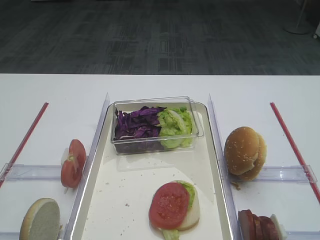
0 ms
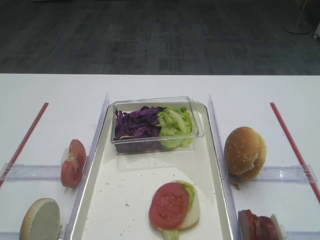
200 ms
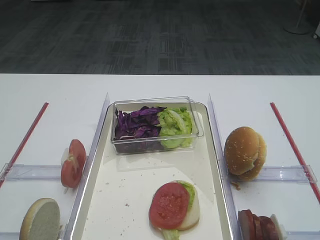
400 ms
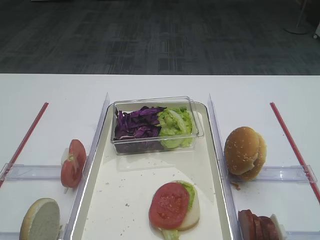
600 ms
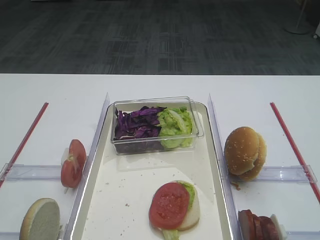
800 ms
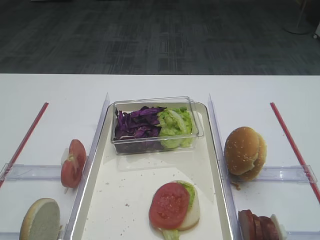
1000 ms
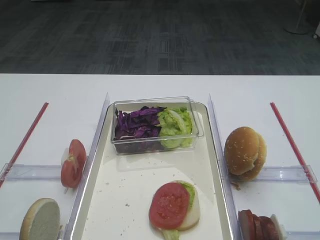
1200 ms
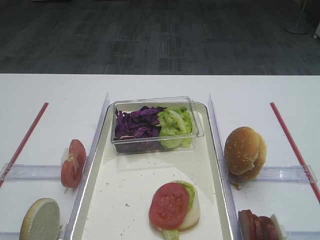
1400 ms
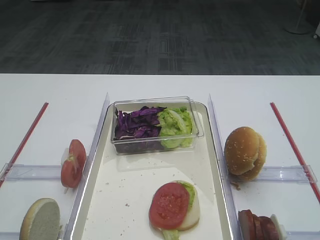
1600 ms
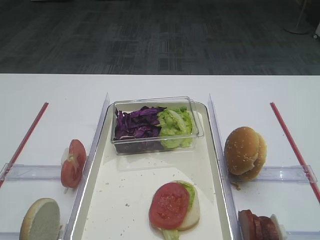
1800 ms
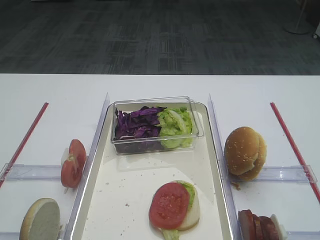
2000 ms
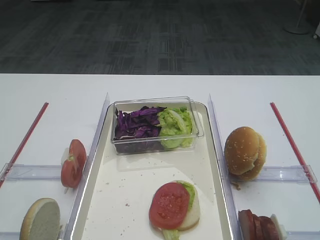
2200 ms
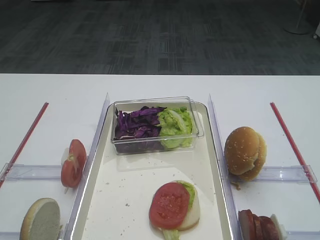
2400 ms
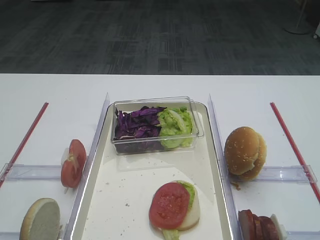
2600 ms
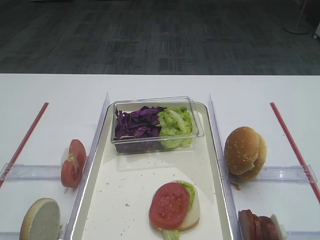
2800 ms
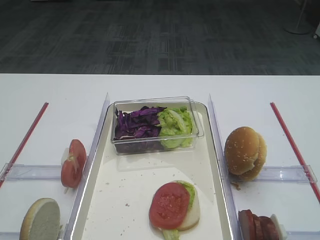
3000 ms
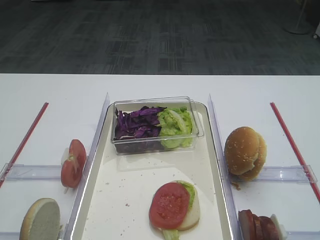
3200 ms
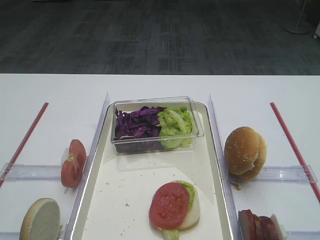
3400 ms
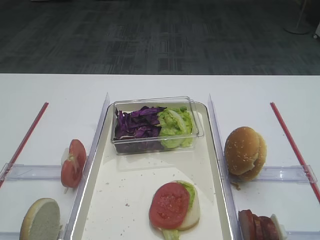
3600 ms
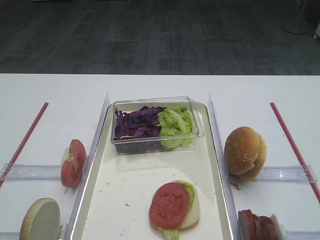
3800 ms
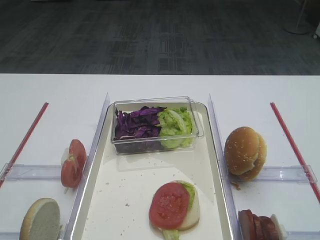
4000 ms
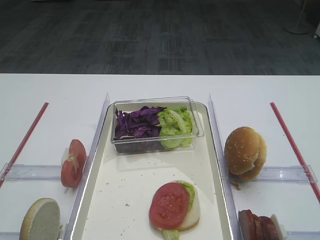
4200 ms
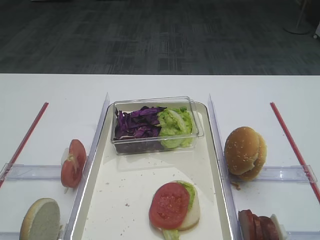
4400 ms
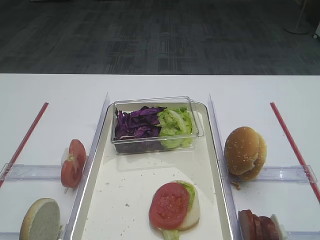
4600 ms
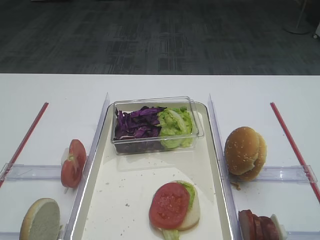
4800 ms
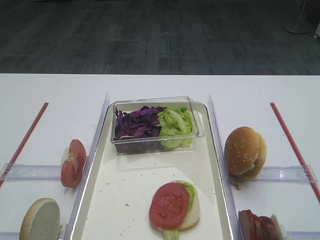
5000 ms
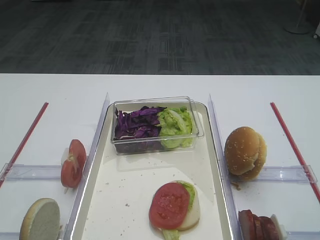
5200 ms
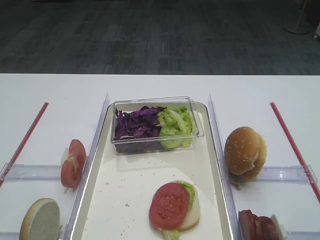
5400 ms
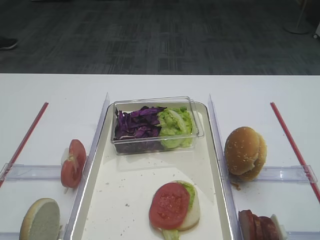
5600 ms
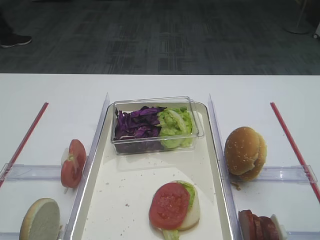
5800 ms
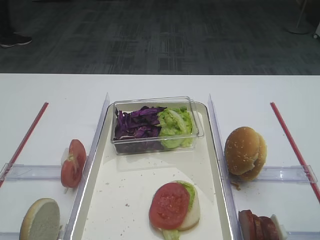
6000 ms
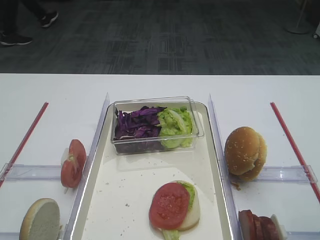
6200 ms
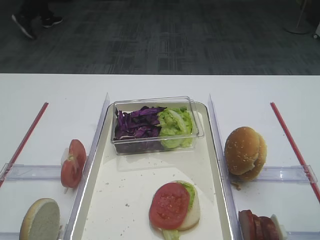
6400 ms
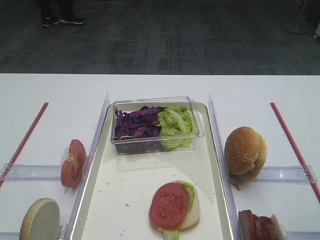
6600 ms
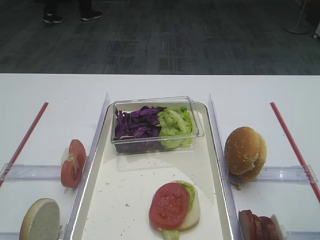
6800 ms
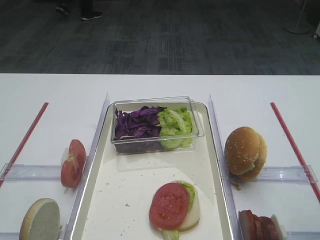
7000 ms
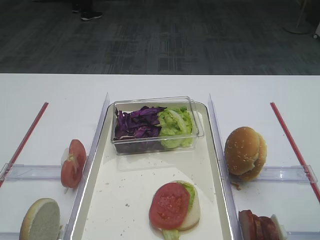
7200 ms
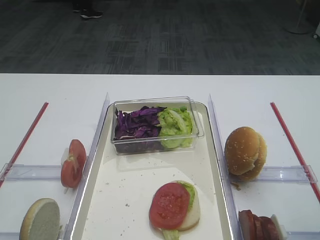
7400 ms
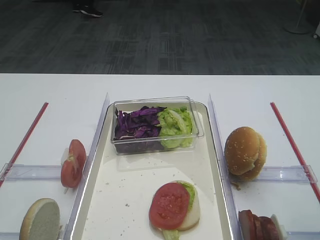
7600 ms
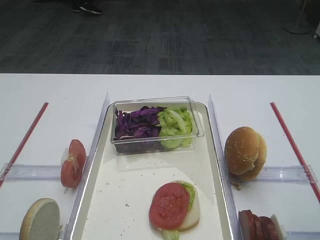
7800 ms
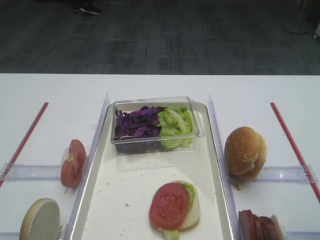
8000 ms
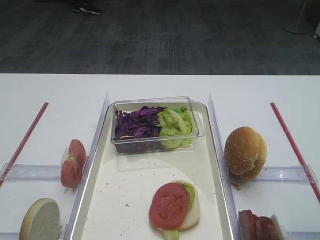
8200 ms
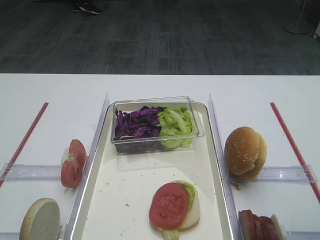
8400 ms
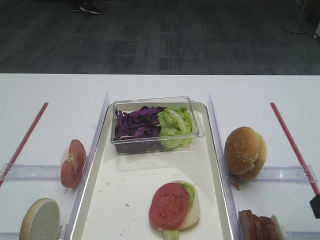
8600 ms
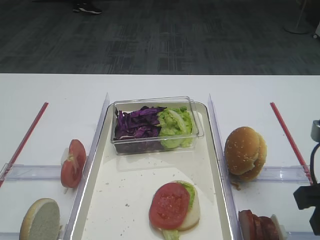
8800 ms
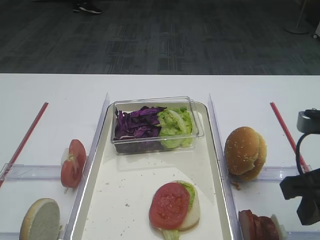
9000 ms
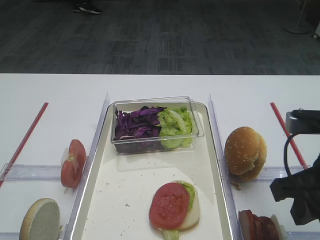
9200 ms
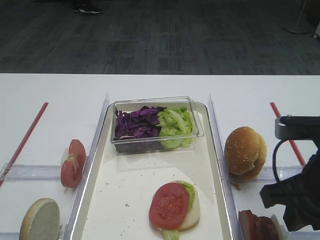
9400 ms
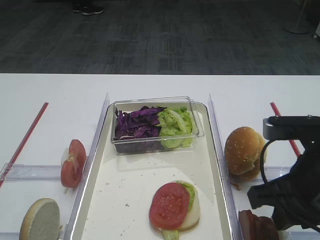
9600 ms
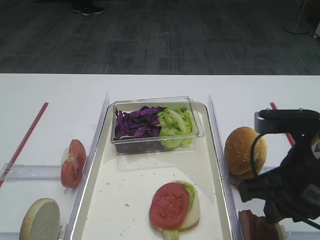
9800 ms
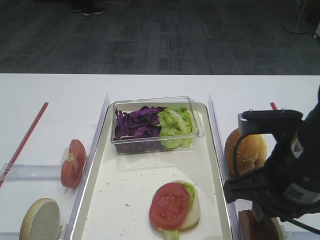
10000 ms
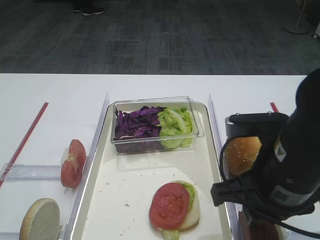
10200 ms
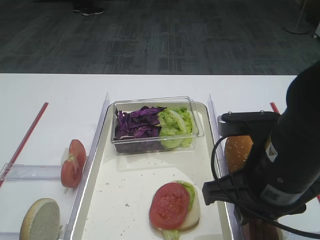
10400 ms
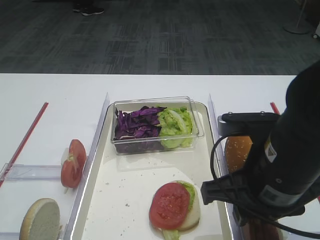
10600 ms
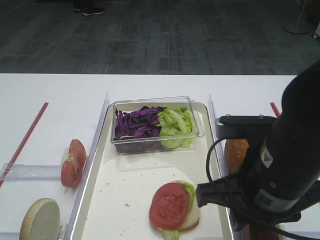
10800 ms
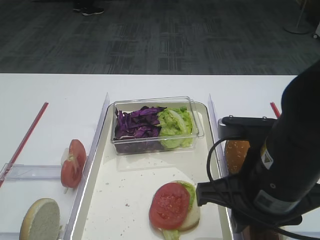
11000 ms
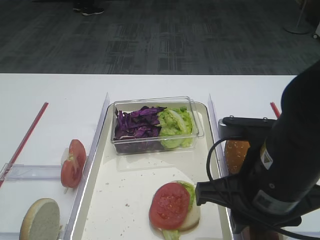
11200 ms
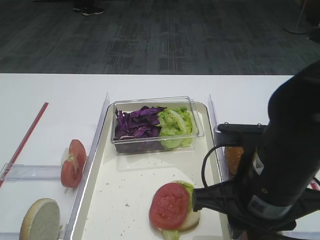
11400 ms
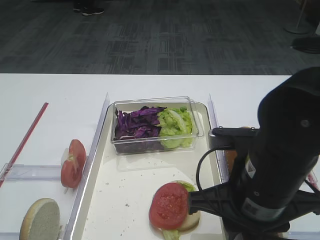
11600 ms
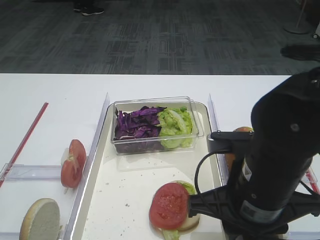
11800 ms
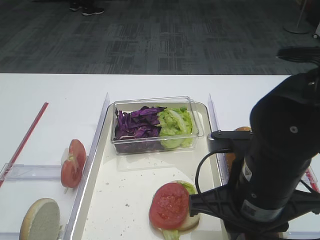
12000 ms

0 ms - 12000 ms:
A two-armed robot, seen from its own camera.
1600 ms - 3000 ms: Both grippers stay about where they are.
7600 ms - 9000 ms: The right gripper shifts approximately 5 cm to the left.
9000 ms - 10400 ms: The right gripper shifts about 10 cm to the left.
10400 ms - 12000 ms: There are only small adjustments of the grippers.

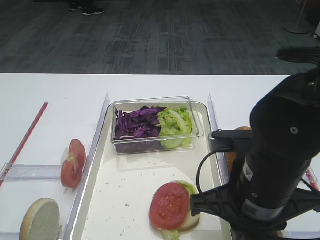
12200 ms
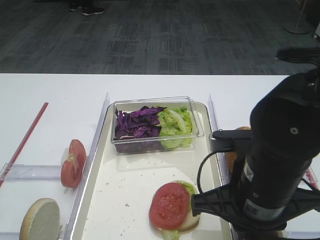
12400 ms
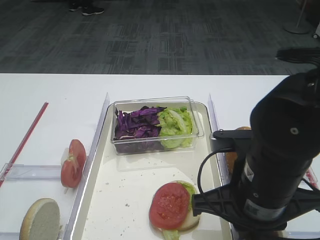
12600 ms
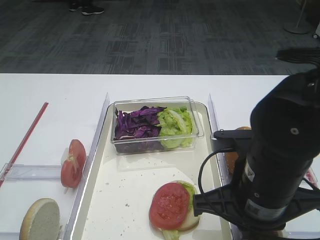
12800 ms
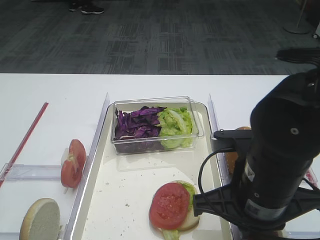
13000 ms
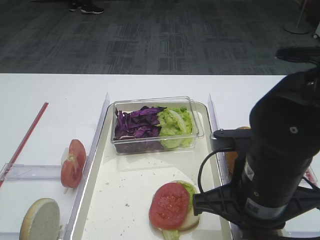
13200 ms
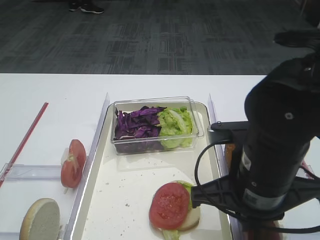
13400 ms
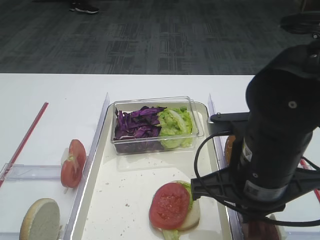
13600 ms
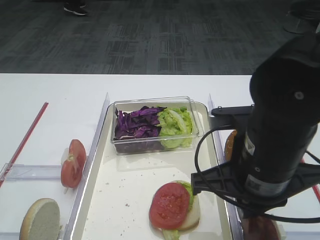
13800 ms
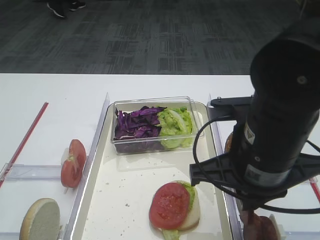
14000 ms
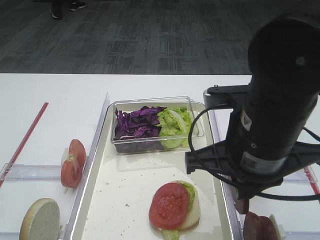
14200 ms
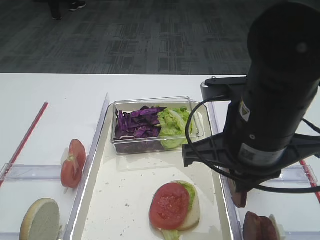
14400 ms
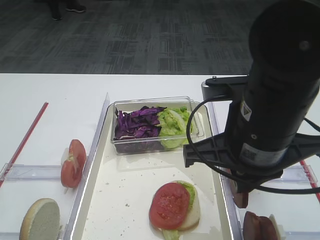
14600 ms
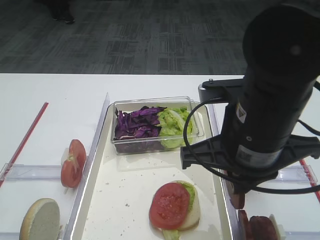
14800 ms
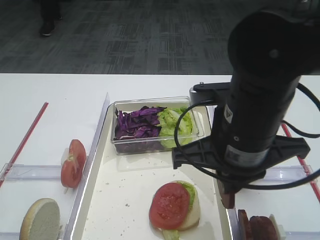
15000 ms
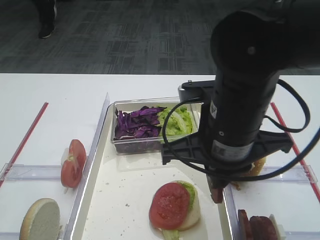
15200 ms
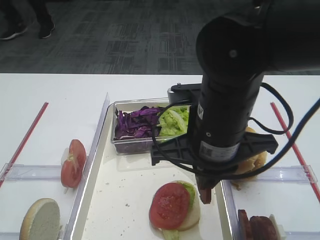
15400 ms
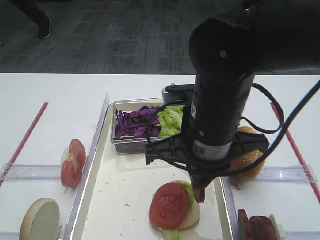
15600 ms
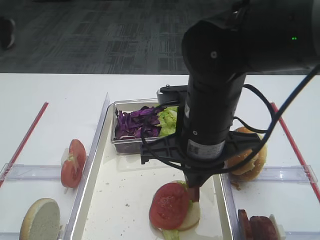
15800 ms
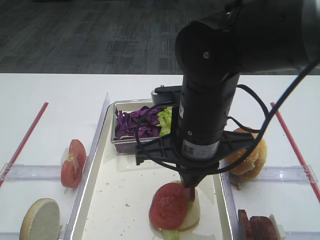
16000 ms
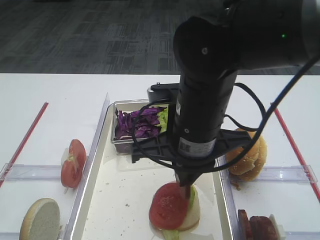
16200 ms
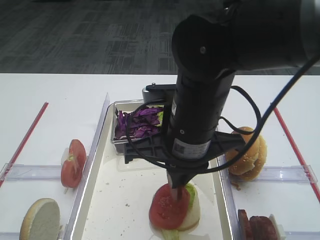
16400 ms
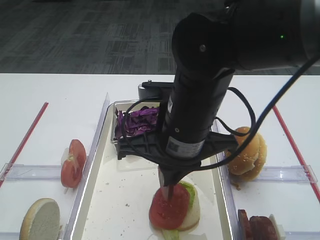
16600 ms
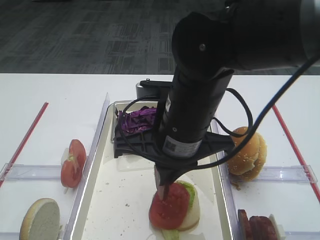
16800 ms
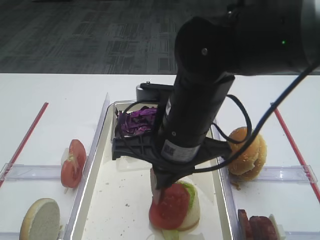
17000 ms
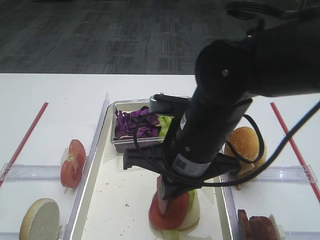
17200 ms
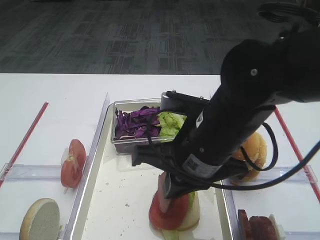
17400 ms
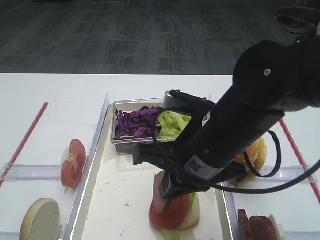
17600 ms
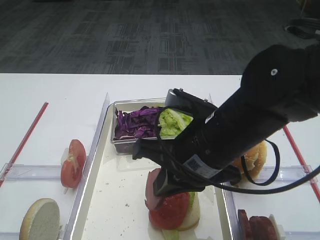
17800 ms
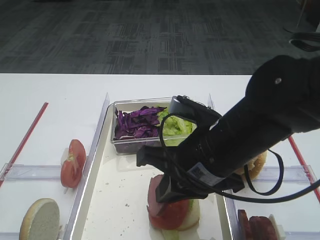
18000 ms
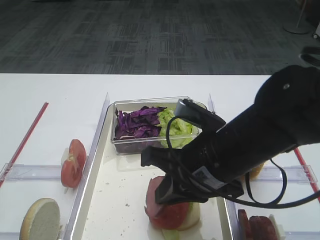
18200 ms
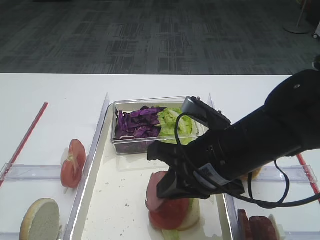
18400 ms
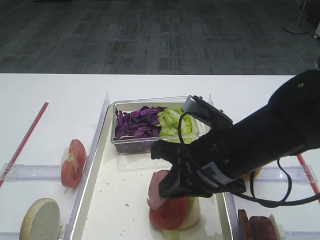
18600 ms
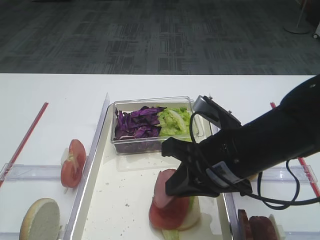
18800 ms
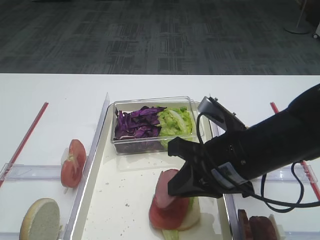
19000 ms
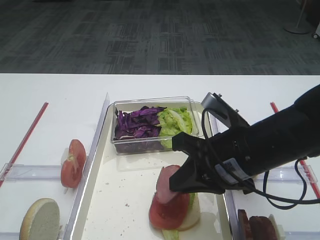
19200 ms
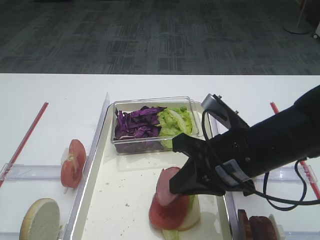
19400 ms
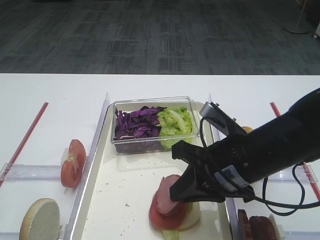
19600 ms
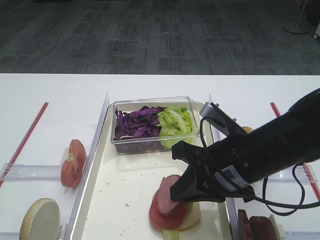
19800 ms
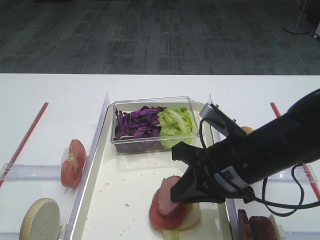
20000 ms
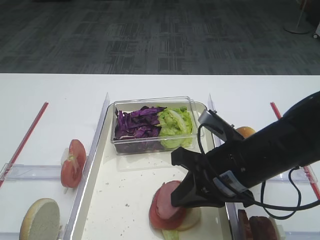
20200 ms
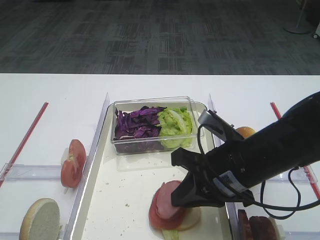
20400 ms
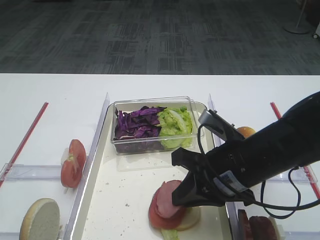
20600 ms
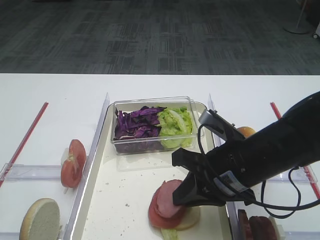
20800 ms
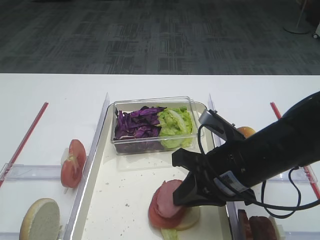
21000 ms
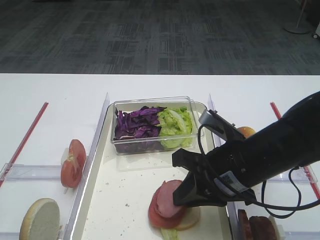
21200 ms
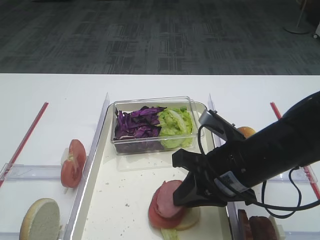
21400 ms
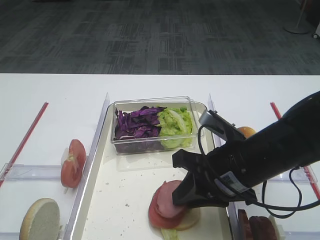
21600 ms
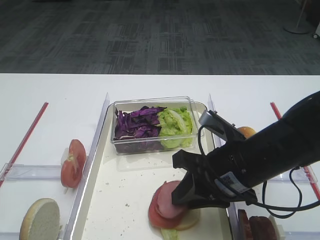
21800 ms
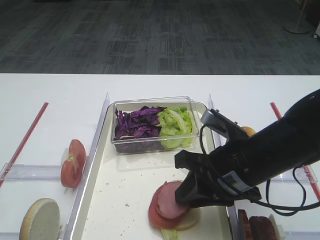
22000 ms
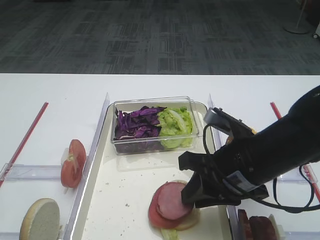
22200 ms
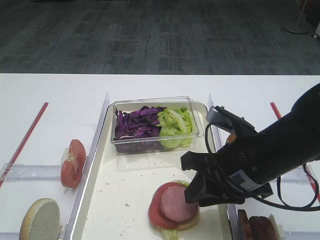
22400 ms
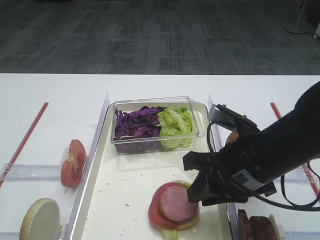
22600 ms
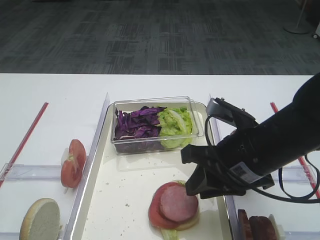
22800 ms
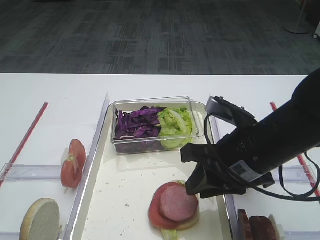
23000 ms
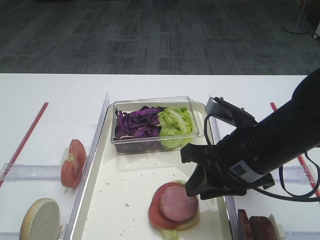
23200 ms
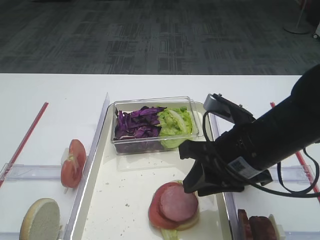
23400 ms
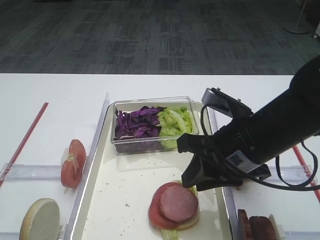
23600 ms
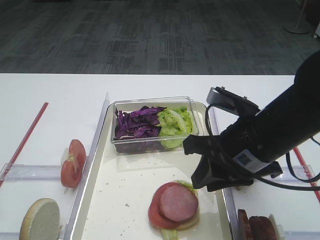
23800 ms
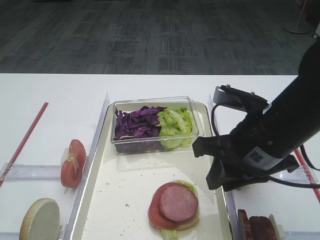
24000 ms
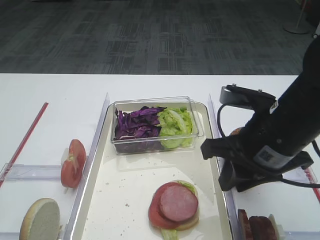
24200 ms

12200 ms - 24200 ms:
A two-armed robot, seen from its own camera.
Step, 14000 ms - 23600 ms: Place the cutlet on the tomato slice with the right gripper.
12200 ms - 13800 ms: The grippers move only a little.
13800 ms - 15200 ms: The right gripper ends up approximately 5 cm from where it was.
15200 ms - 16600 ms: The right gripper shifts by about 5 cm.
16600 ms - 18200 ms: The right gripper shifts by some 5 cm.
18200 ms - 22600 ms: The grippers stay close to where they were, moving slightly.
22600 ms - 24200 ms: There are only small adjustments of the grippers.
